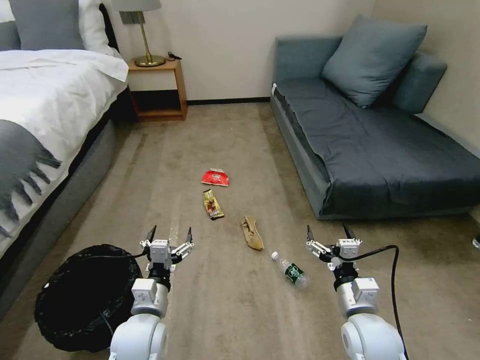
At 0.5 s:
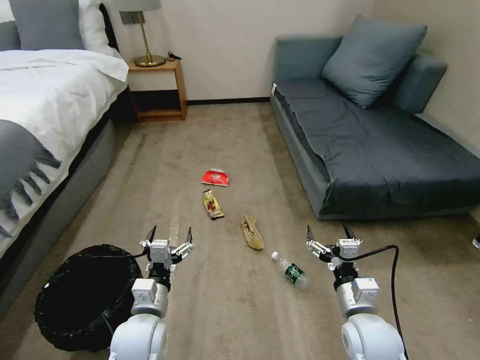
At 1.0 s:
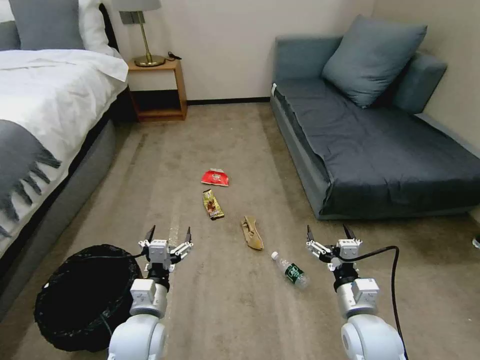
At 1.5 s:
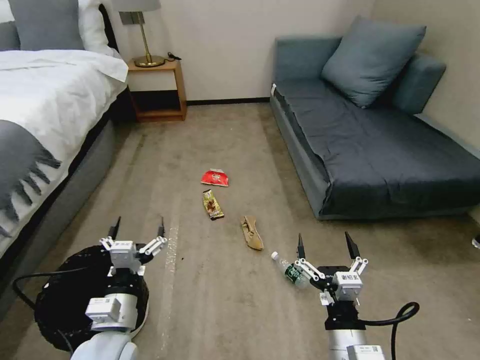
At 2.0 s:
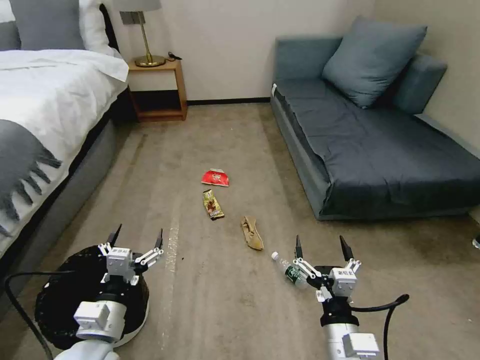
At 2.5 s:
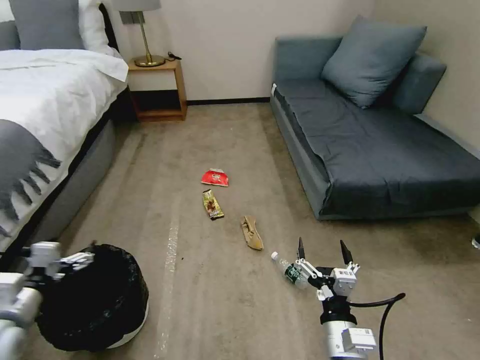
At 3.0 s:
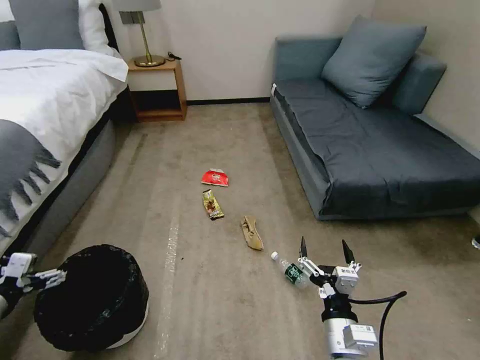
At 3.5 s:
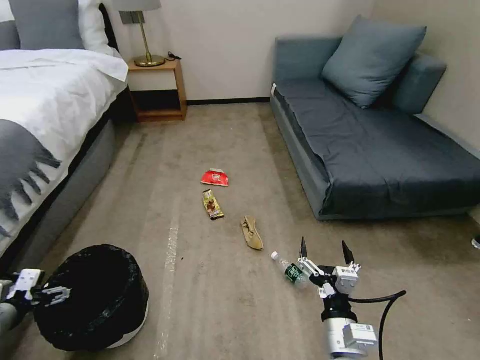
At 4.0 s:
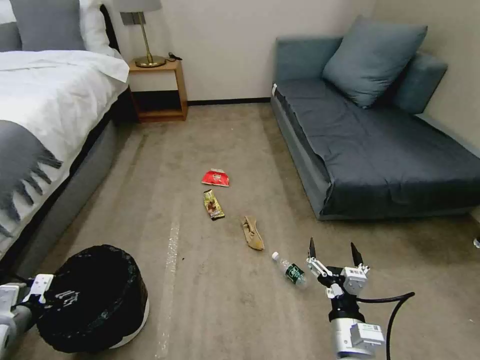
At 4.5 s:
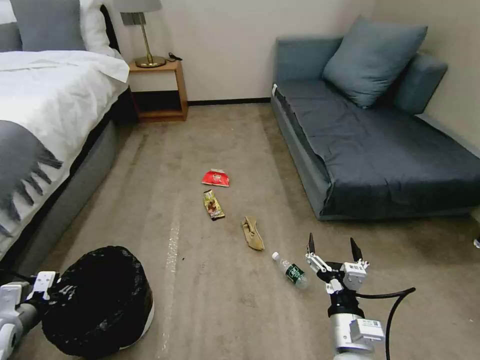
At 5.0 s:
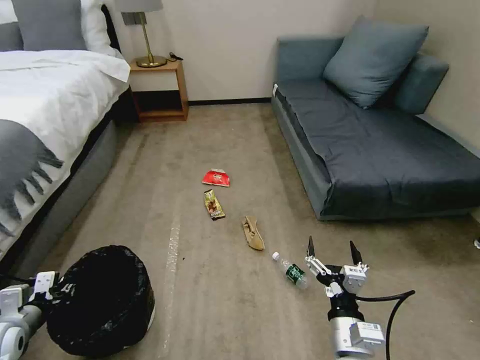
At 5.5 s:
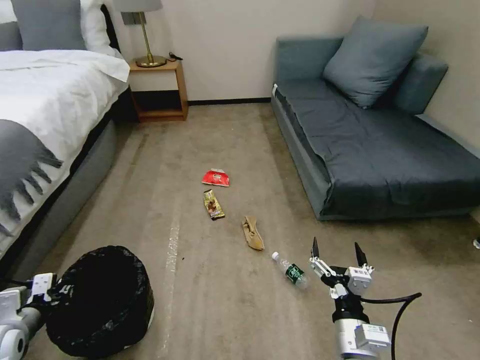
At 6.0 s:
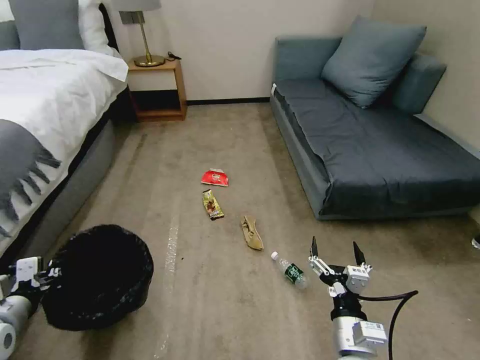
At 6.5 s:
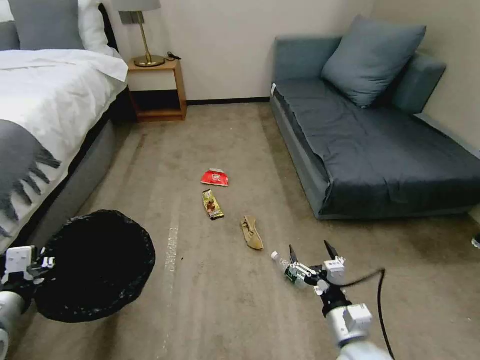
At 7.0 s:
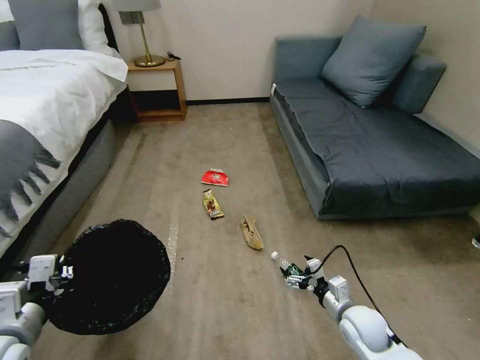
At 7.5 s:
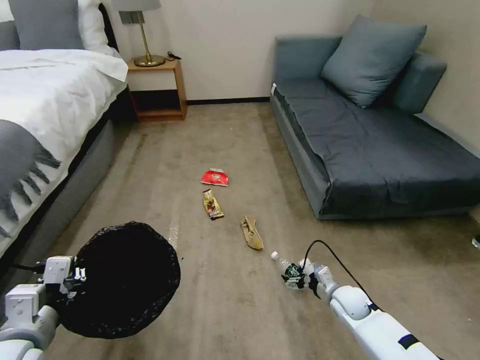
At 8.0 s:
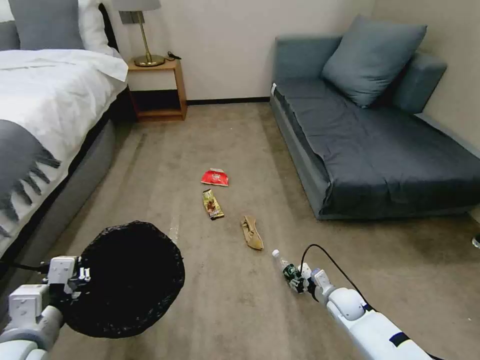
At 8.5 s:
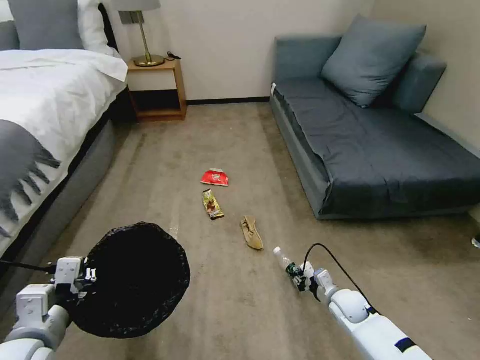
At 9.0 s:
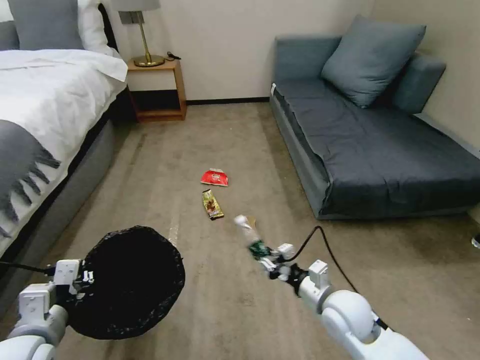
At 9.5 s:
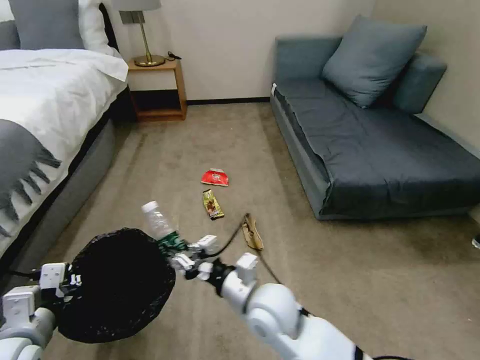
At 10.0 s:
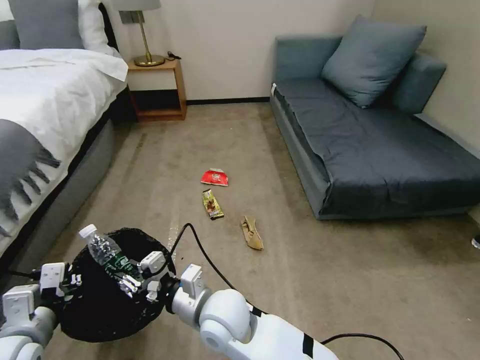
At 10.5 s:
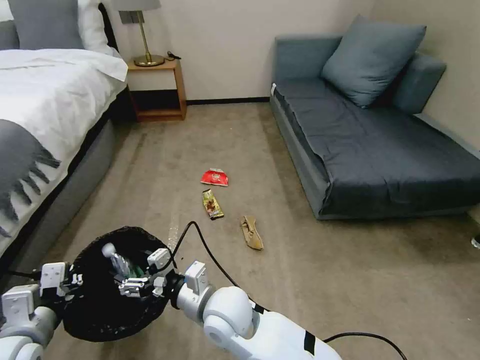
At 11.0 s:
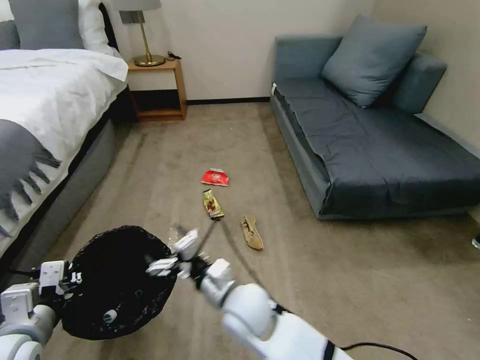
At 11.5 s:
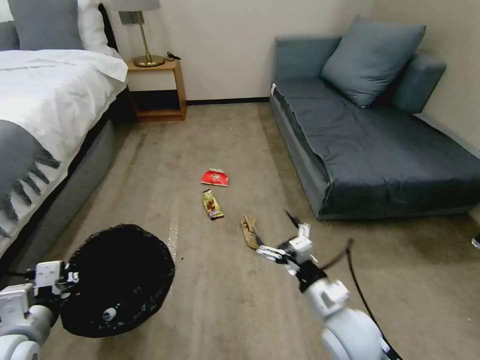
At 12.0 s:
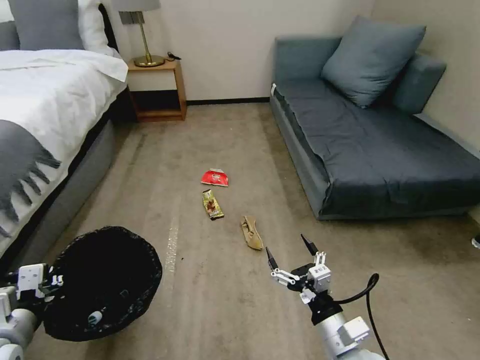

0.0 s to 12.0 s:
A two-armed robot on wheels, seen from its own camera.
Task of the whole recording: Pick up the trash bin, then pick up the garbage on the floor and place it into the trash bin.
2.0 to 4.0 s: The left gripper moves to the left, some 25 cm.
4.0 to 6.0 s: The left gripper shifts approximately 5 cm to the right, and closes up.
6.0 to 8.0 s: The right gripper travels forward, downward and to the right by about 30 cm, and closes. The left gripper goes about 15 cm to the right and upward.
8.0 to 10.0 s: The right gripper shifts about 40 cm to the left and upward.
10.0 to 12.0 s: The right gripper moves to the right, roughly 25 cm, and opens up.

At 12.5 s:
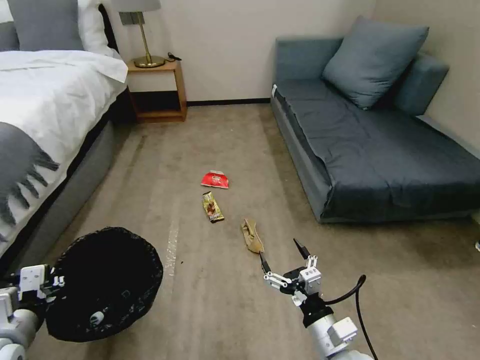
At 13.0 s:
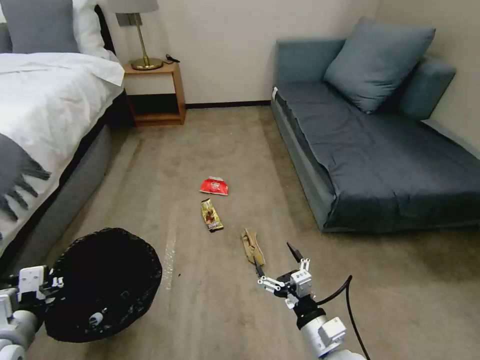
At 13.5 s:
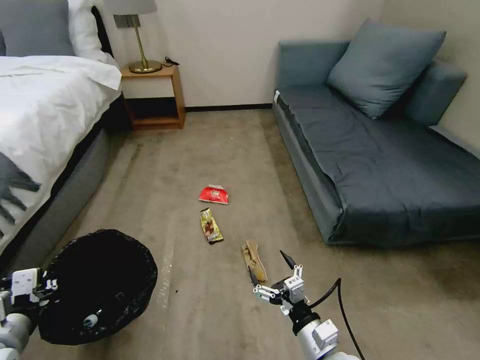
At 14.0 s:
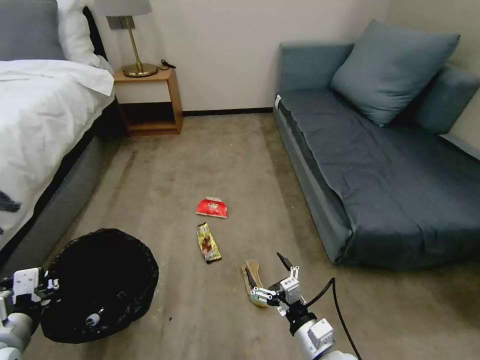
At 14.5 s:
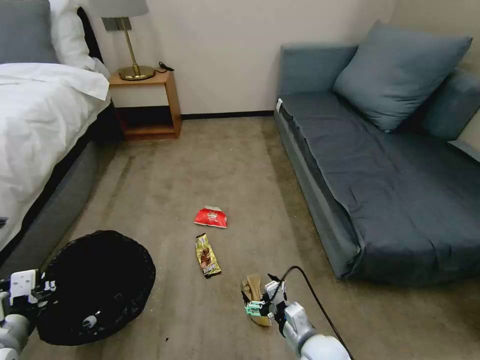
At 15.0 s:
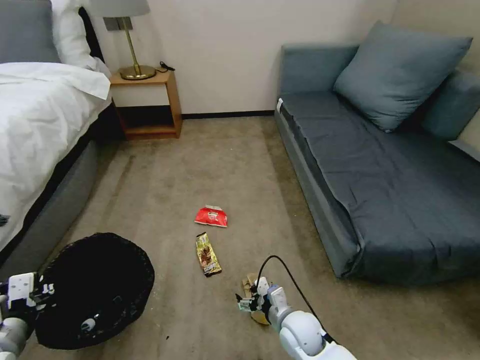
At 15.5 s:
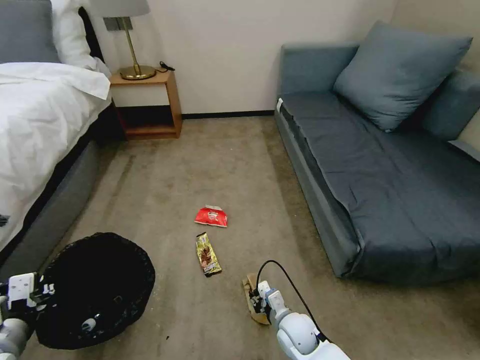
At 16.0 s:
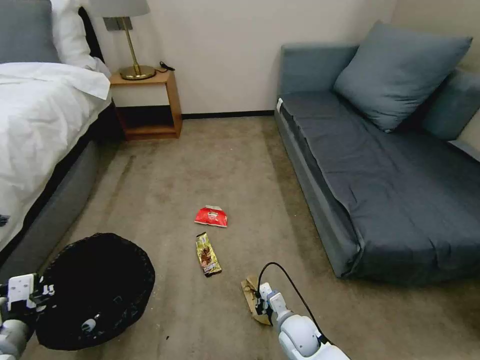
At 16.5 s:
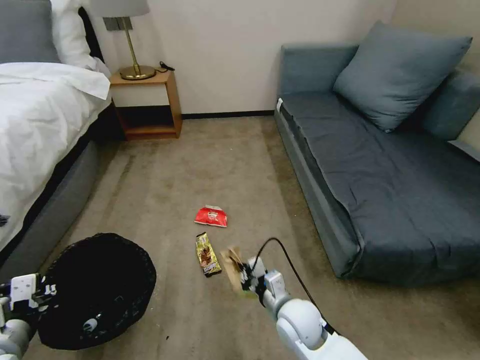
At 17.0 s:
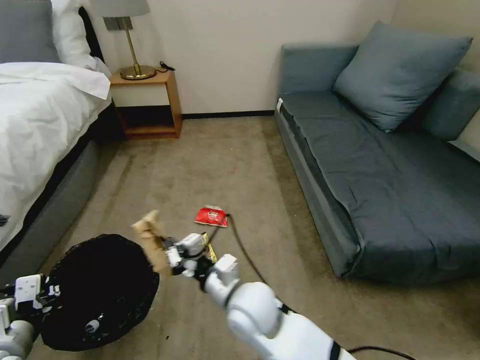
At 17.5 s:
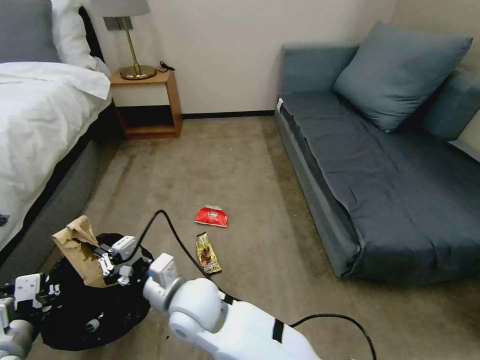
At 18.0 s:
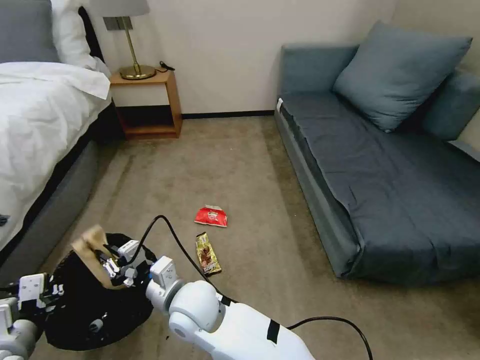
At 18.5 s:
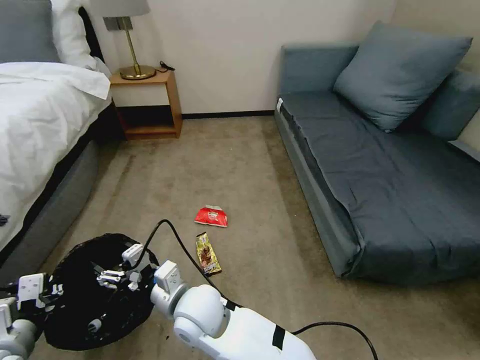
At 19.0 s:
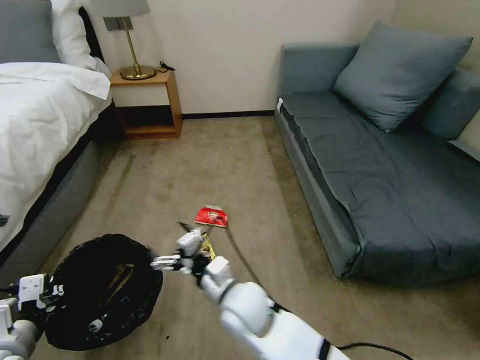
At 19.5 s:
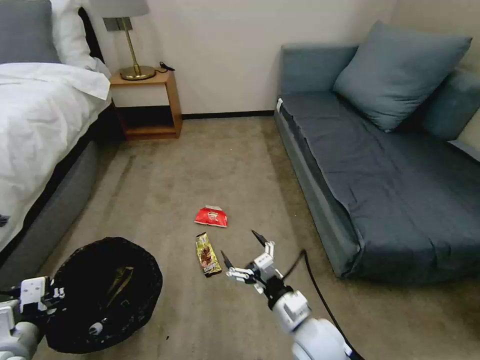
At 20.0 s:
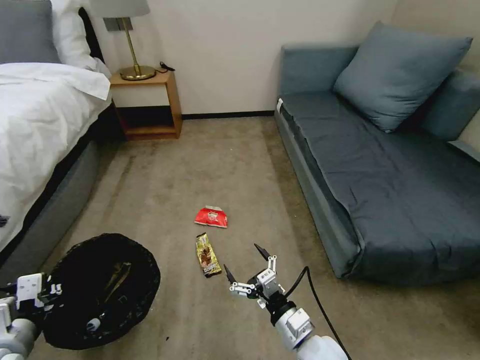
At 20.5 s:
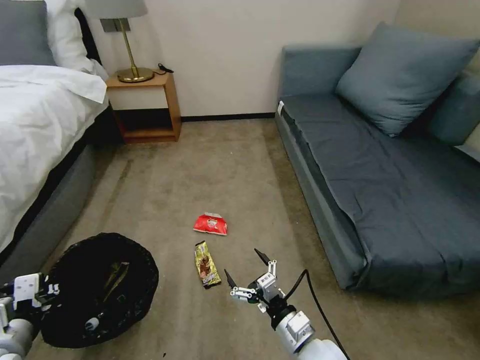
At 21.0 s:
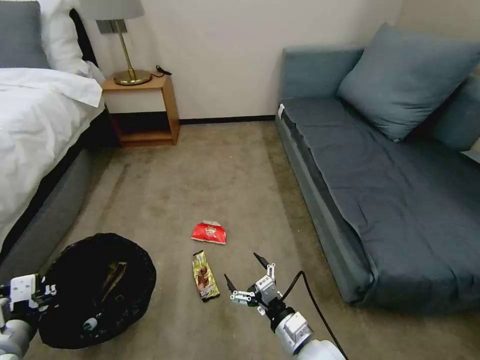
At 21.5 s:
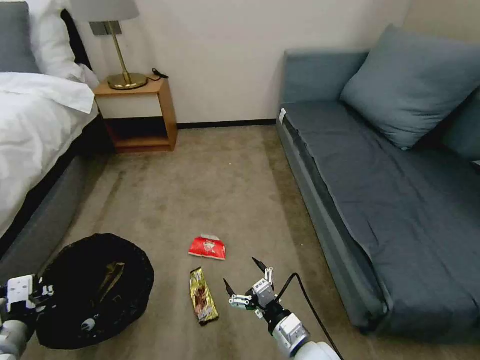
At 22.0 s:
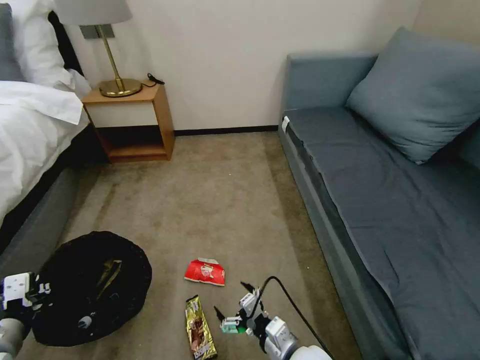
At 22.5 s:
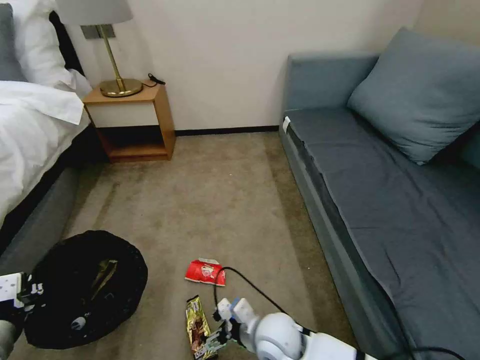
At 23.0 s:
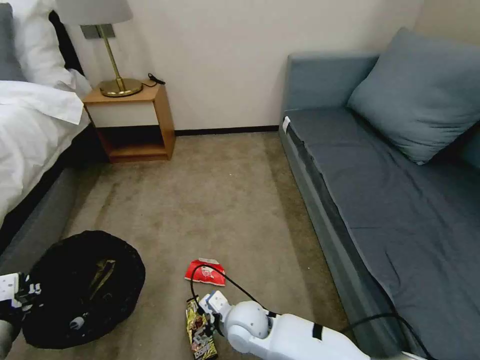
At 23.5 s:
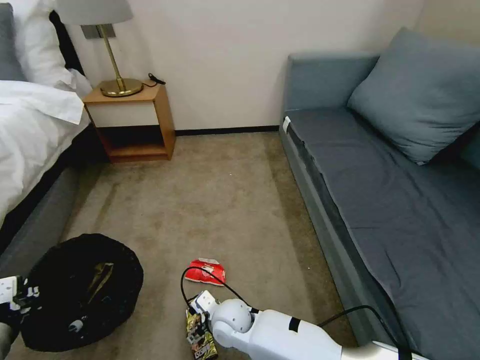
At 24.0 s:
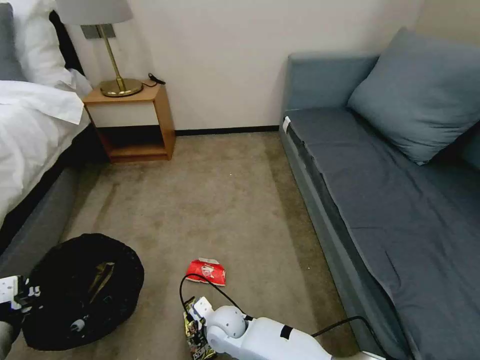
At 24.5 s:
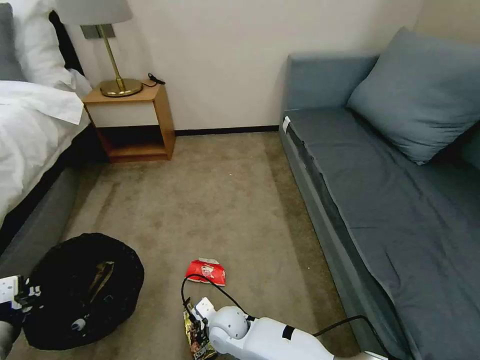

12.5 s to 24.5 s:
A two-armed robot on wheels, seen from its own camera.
Task of the whole recording: Pick up the trash bin, then pick up the garbage on the floor and place it into the trash bin.
12.5 to 14.5 s: The right gripper moves downward, about 5 cm.
14.5 to 16.5 s: The right gripper is displaced forward by roughly 5 cm, goes downward and returns, roughly 10 cm each way, and closes.
16.5 to 18.5 s: The right gripper moves to the left, roughly 20 cm, and opens up.
18.5 to 20.5 s: The right gripper heads to the right, covering approximately 25 cm.
20.5 to 22.5 s: The right gripper goes approximately 10 cm to the left.
22.5 to 24.5 s: The right gripper shifts some 15 cm to the left and downward, and closes.

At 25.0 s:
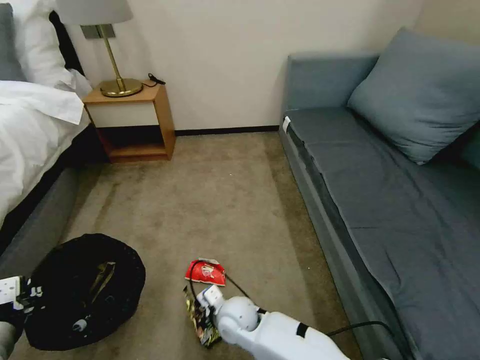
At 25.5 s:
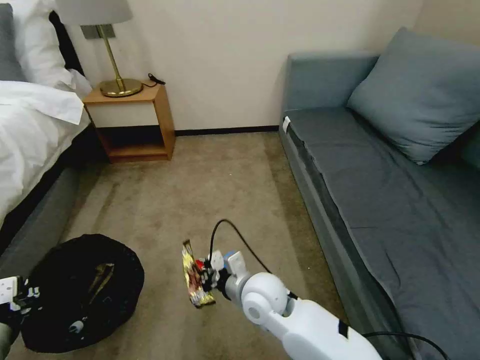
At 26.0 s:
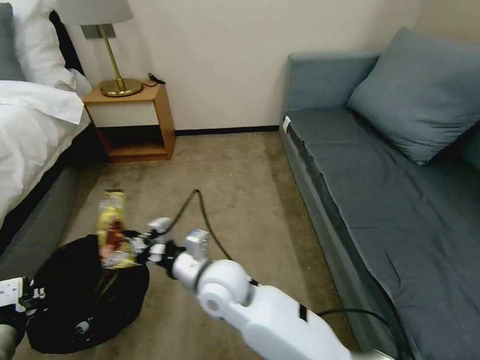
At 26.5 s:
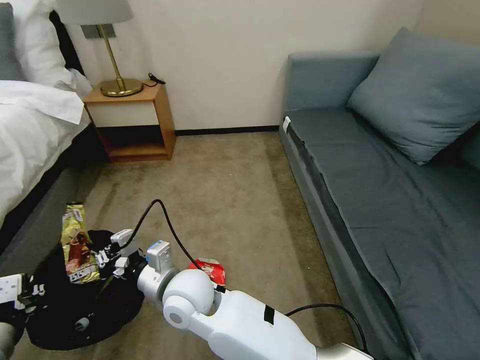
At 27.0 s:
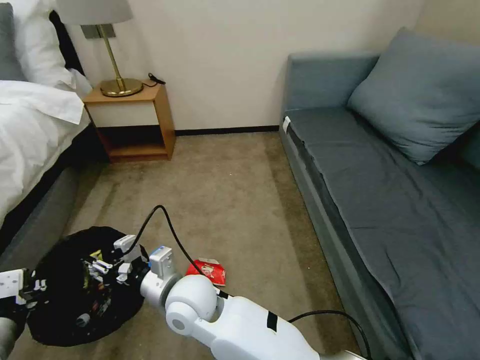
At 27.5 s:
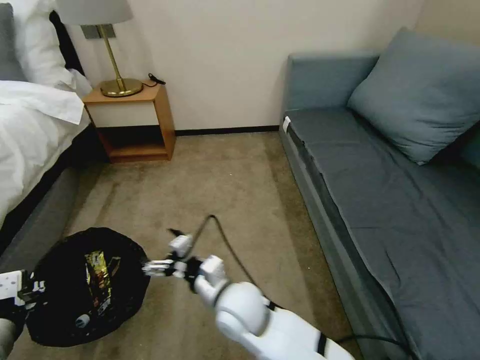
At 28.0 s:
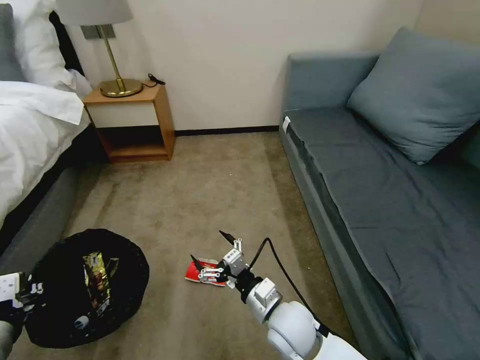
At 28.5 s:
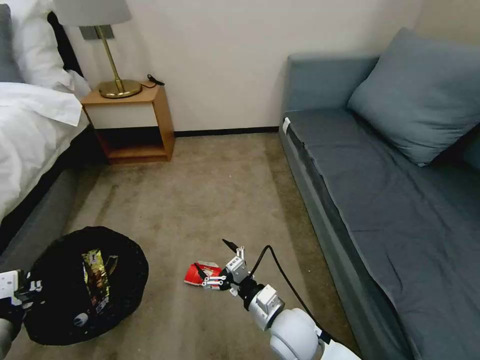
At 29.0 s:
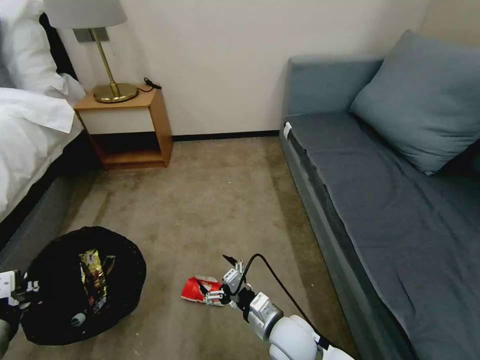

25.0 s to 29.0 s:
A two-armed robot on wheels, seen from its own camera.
Task of the whole recording: Pick up the trash bin, then pick up the garbage on the floor and place it into the trash bin.
25.0 to 27.0 s: The right gripper moves upward and to the left, about 20 cm, and opens its fingers.
27.0 to 29.0 s: The right gripper shifts roughly 25 cm to the right and downward, and opens its fingers.
